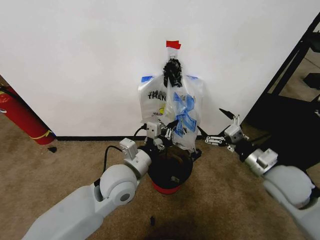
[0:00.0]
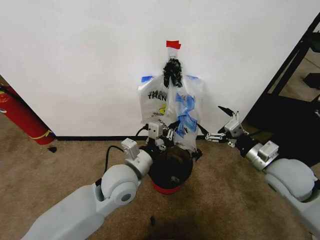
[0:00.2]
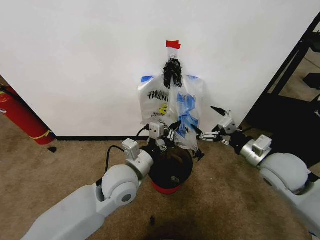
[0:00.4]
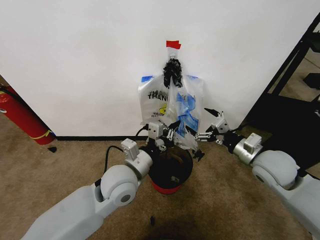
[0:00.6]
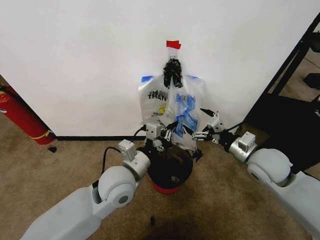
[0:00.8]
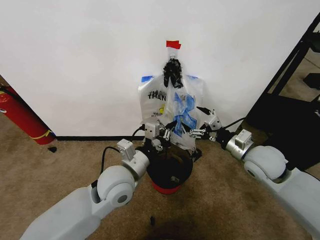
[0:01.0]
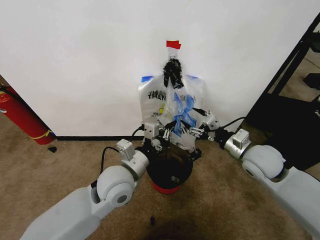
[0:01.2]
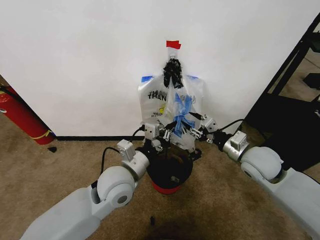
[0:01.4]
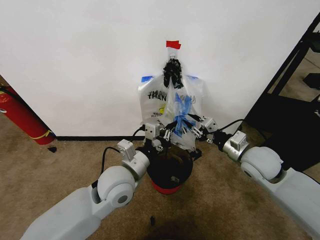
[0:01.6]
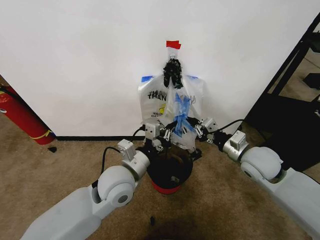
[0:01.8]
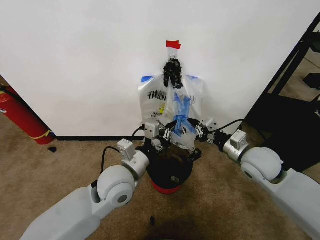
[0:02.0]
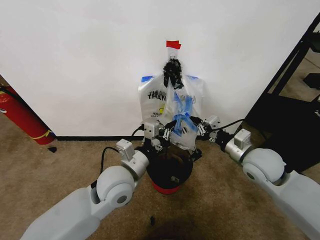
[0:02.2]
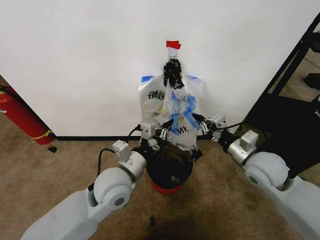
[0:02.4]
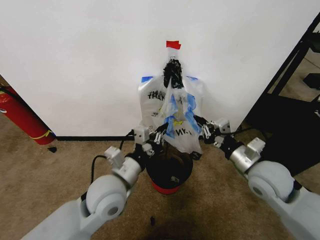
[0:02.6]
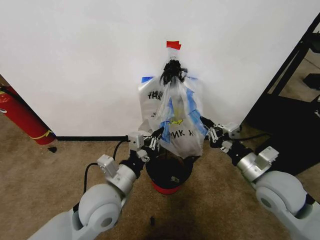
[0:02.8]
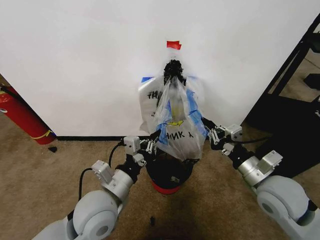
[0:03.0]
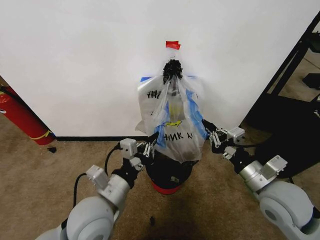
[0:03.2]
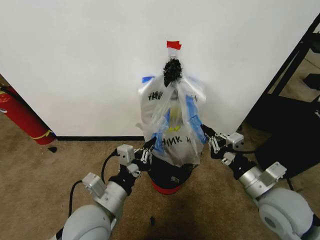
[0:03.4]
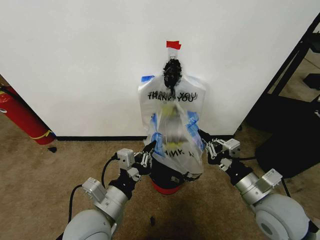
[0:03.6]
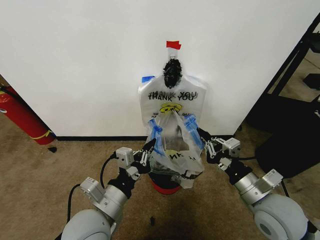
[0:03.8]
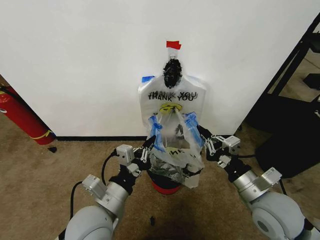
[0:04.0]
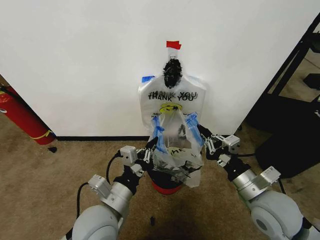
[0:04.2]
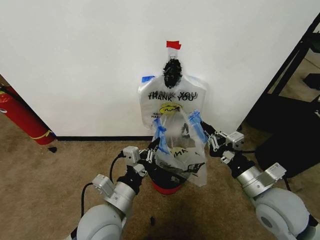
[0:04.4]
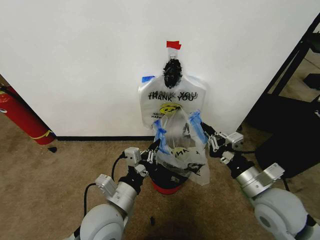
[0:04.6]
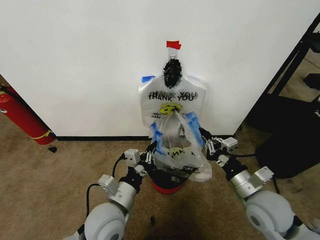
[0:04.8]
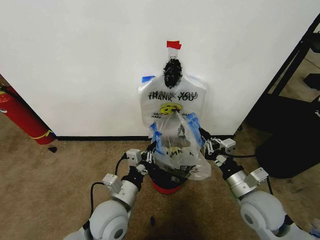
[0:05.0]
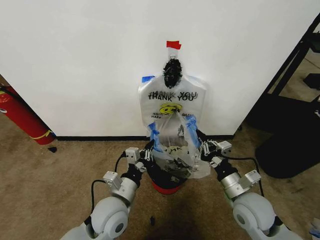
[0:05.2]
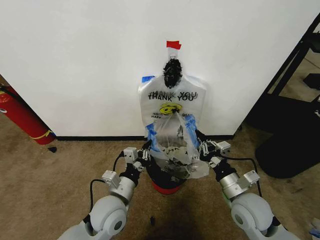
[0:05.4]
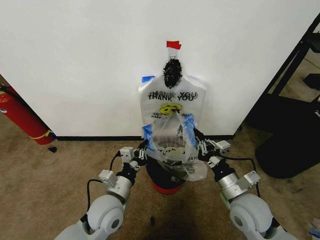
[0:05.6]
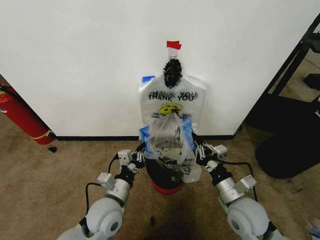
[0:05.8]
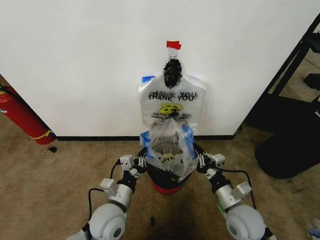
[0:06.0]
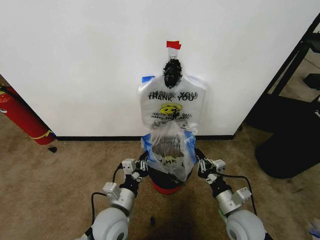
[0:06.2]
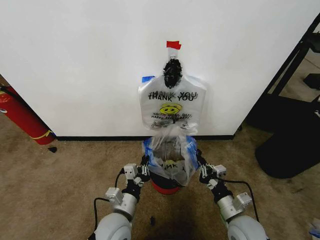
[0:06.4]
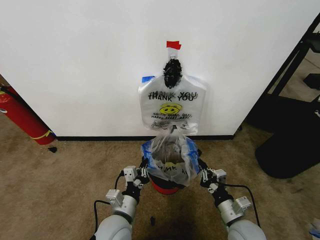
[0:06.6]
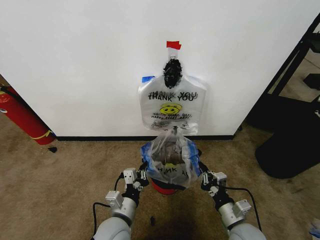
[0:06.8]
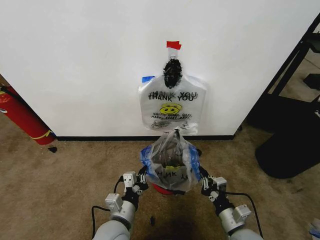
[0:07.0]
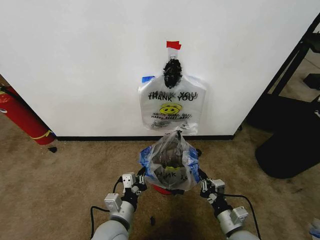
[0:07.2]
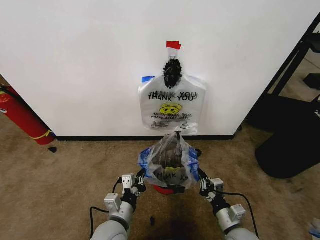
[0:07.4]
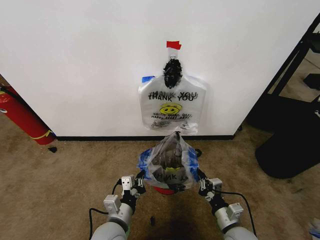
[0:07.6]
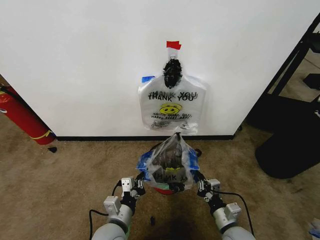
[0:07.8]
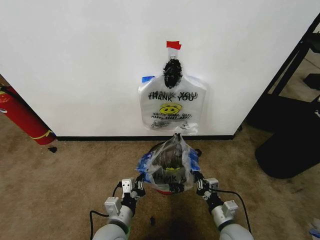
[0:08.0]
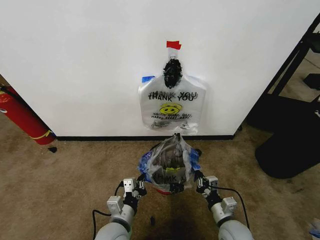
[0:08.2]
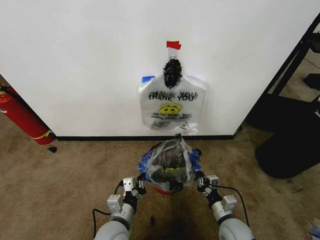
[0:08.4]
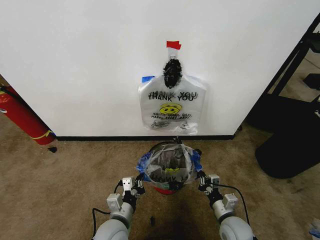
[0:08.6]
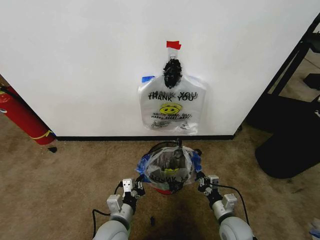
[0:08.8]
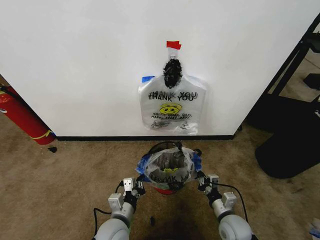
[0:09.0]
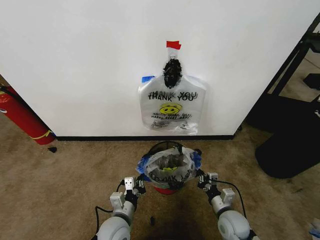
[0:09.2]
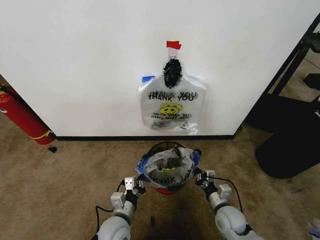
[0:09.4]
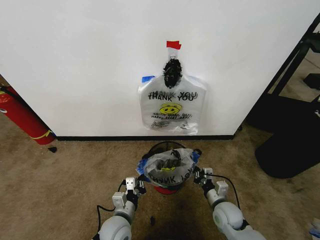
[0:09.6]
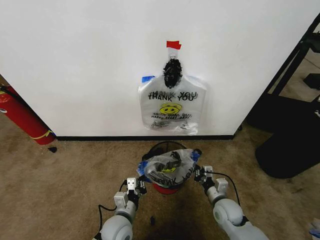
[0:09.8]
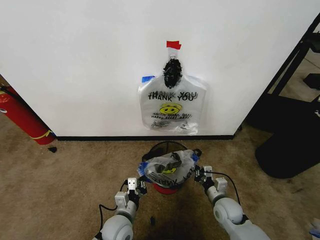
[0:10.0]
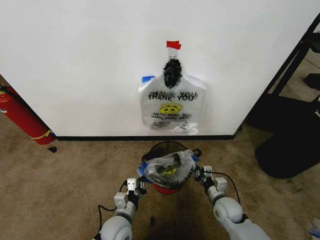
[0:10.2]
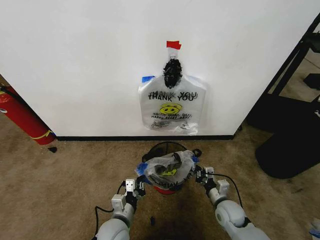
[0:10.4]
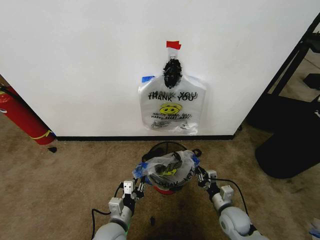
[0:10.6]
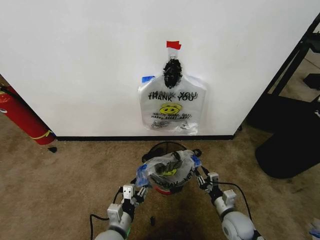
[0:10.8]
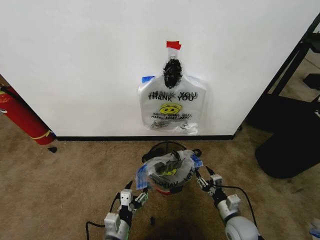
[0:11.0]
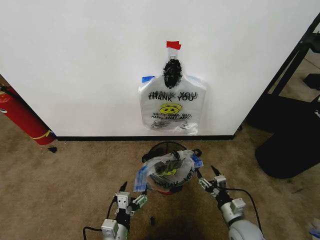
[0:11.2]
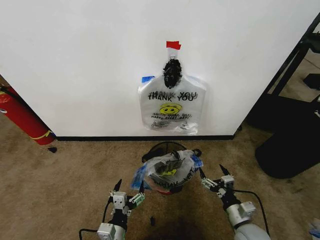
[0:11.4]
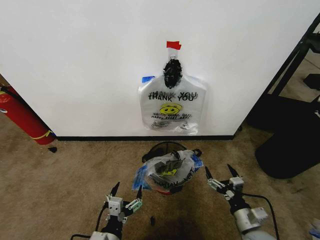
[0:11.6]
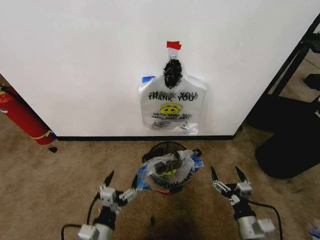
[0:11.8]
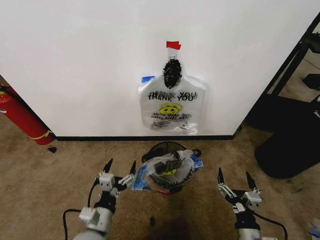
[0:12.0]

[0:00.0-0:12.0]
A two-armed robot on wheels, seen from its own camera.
Task of the whole recording: Pick up the garbage bag from the wall and place it over the trash bin.
0:00.0 to 0:01.6: The right gripper moves forward, about 5 cm, and closes its fingers.
0:01.6 to 0:03.0: Both grippers move backward, about 10 cm.
0:03.0 to 0:04.4: There are only small adjustments of the grippers.
0:04.4 to 0:06.0: The grippers both shift downward by roughly 10 cm.
0:06.0 to 0:07.6: The left gripper shifts by approximately 5 cm; the right gripper travels downward by about 10 cm.
0:07.6 to 0:09.0: The right gripper shifts by approximately 5 cm.
0:09.0 to 0:10.4: The right gripper heads forward, covering roughly 5 cm.
0:10.4 to 0:12.0: The right gripper travels backward and upward by about 20 cm, and opens its fingers. Meanwhile the left gripper heads upward and backward, covering approximately 10 cm, and opens.

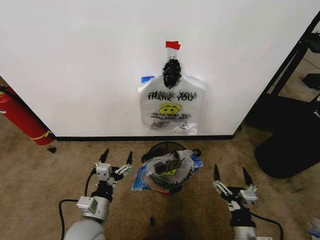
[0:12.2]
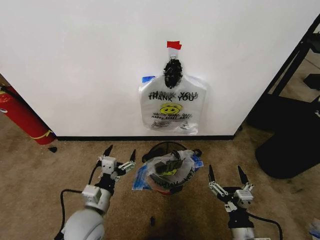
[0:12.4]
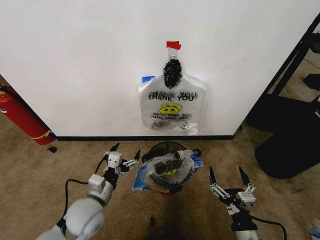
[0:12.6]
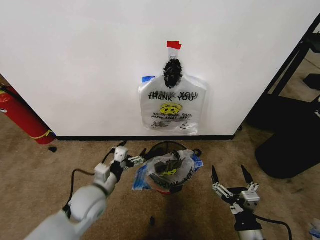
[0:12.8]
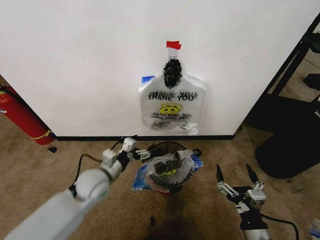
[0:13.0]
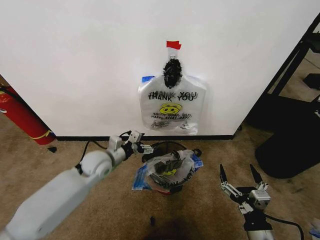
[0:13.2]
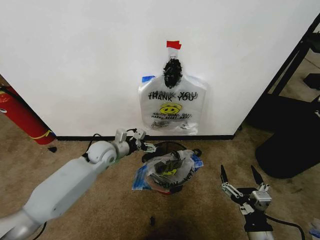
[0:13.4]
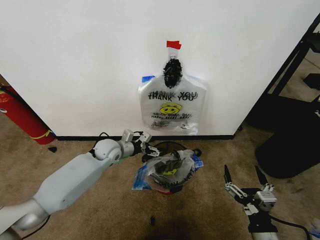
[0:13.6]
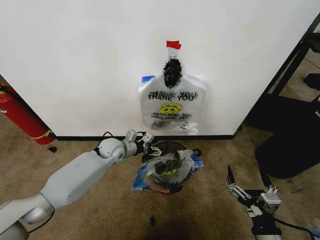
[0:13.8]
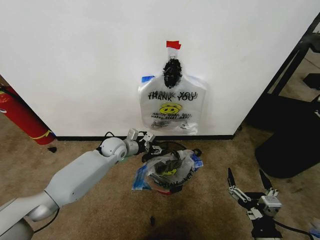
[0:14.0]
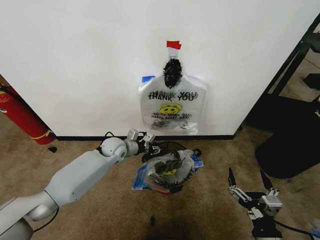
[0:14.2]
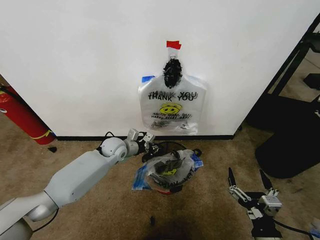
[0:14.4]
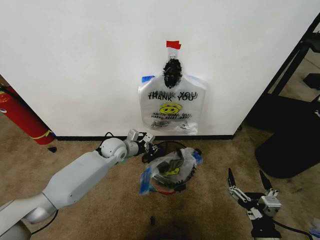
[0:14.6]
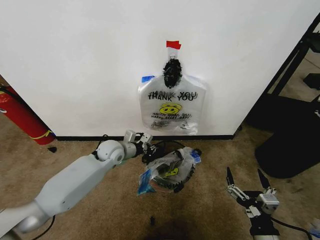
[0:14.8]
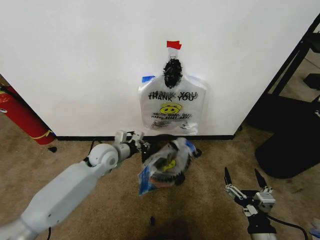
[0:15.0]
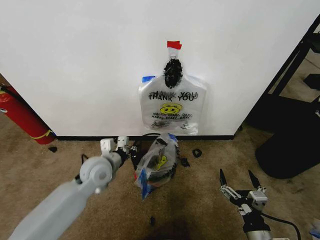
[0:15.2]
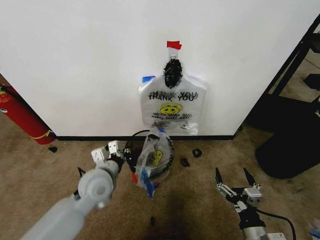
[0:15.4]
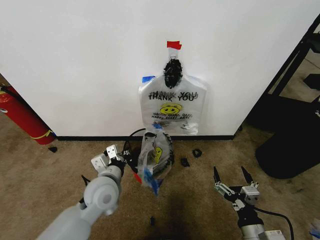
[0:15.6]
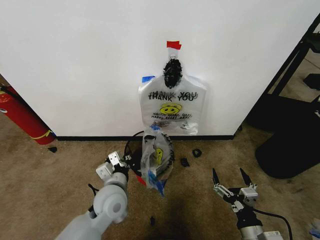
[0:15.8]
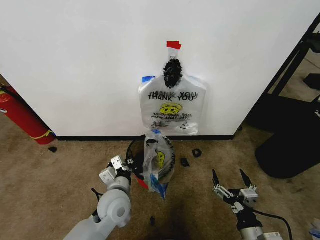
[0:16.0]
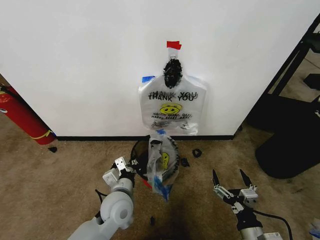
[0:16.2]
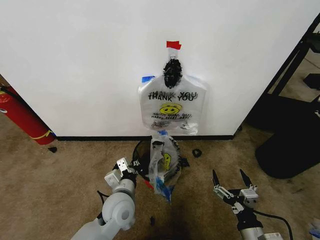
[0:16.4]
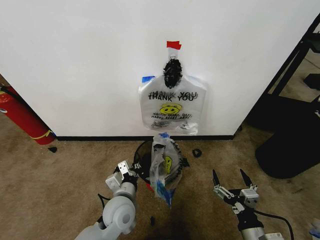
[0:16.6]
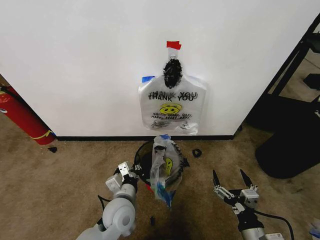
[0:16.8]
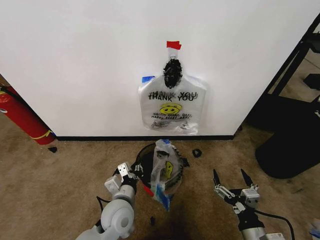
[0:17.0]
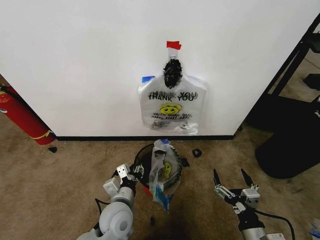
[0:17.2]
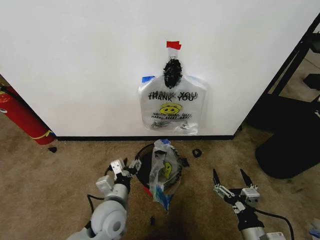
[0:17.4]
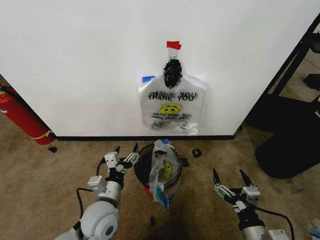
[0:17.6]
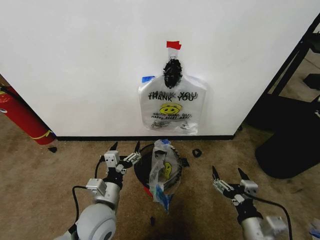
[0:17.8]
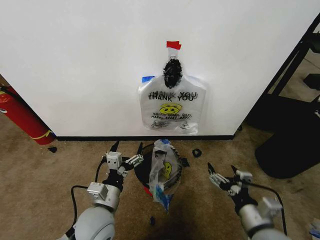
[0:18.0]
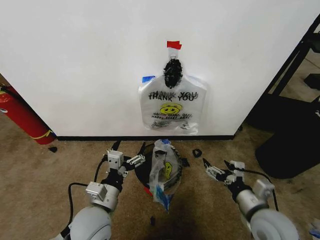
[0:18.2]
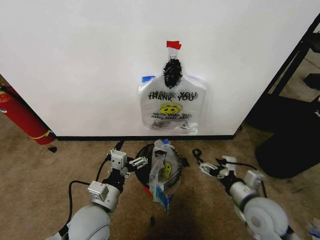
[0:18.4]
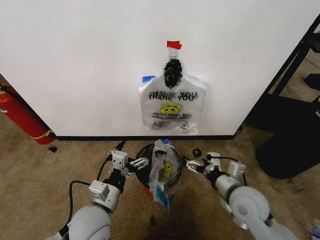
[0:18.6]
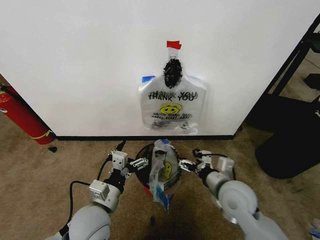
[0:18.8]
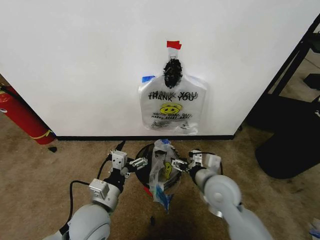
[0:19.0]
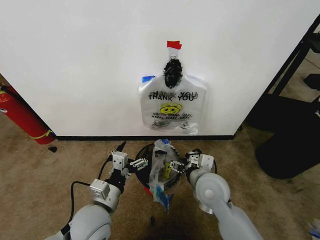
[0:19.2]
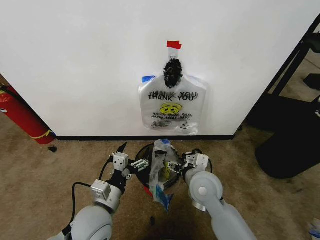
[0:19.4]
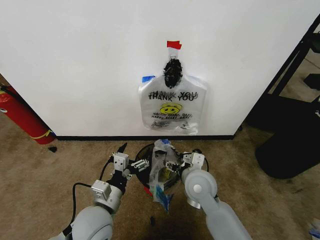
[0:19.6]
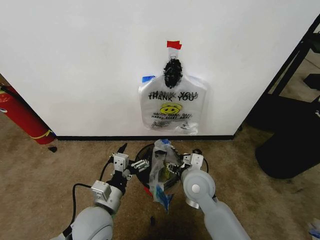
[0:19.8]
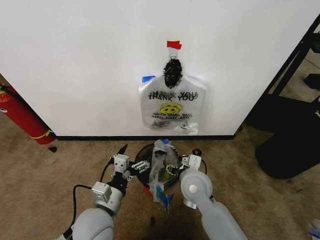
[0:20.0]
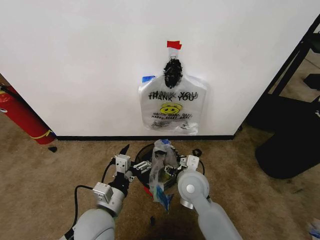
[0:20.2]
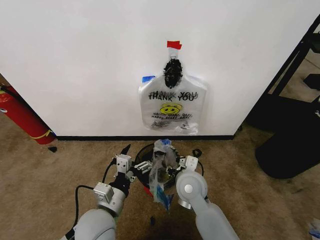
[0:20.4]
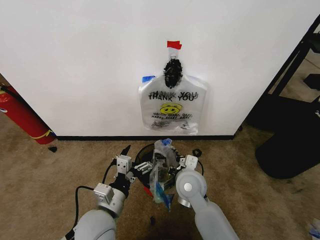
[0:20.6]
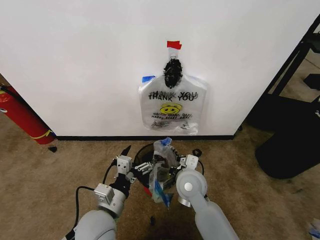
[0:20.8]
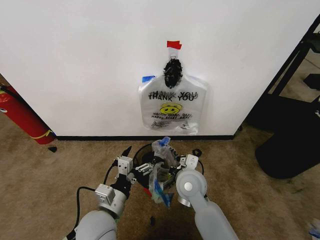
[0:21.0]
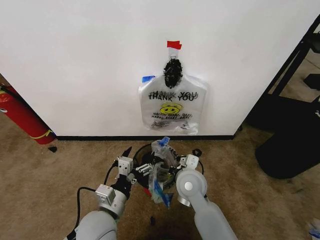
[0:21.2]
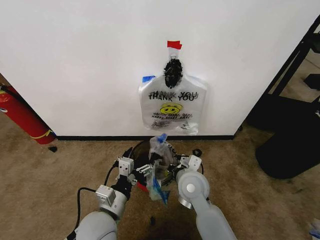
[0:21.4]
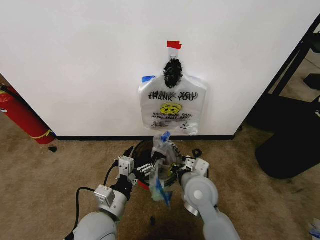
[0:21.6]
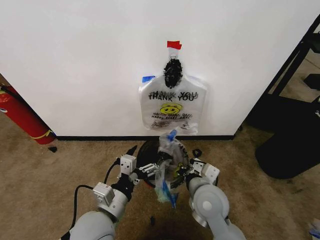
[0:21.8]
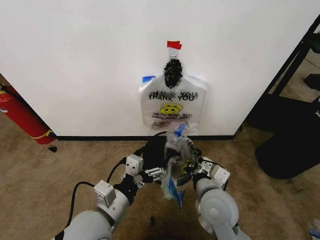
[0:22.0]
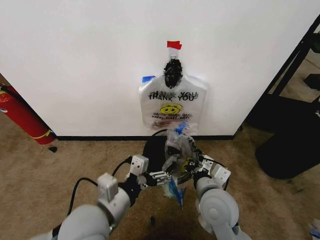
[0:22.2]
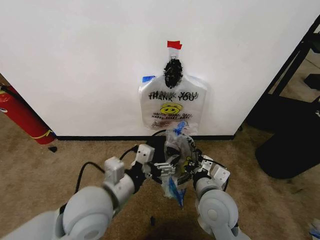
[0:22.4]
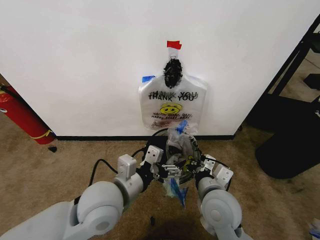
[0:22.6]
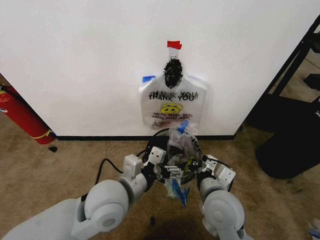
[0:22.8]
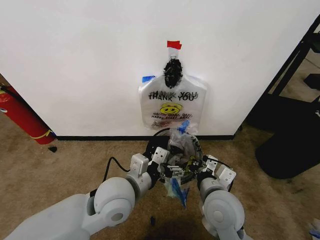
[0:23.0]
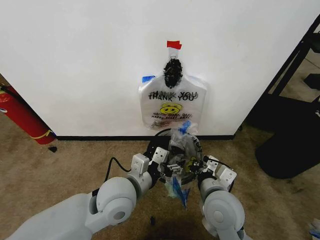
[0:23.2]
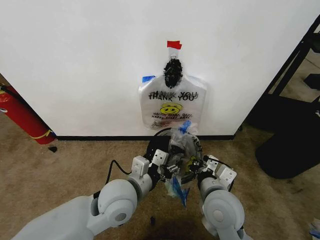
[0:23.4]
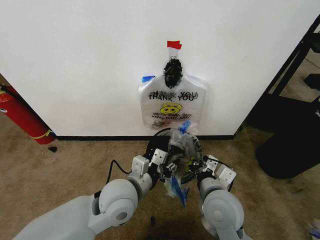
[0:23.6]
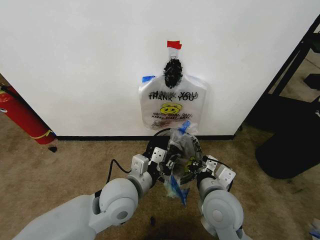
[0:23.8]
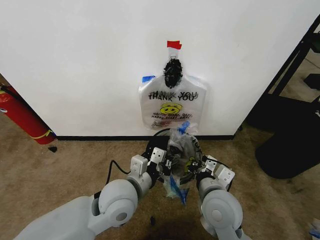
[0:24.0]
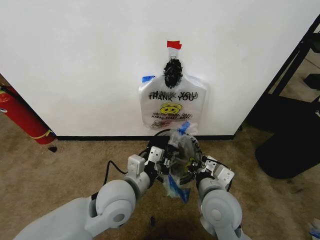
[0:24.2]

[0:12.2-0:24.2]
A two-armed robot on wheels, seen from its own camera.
Task of the whole recording: Pick up the garbage bag from the wall and place it over the trash bin.
0:12.2 to 0:13.8: The left gripper heads forward, covering about 30 cm, while the right gripper moves roughly 5 cm.
0:13.8 to 0:15.2: The left gripper is displaced backward by some 10 cm, and closes up.
0:15.2 to 0:16.6: The left gripper is displaced backward, to the right and downward by some 15 cm.
0:16.6 to 0:18.2: The right gripper goes about 10 cm forward and upward. The left gripper travels upward, to the left and backward by roughly 10 cm, and opens.
0:18.2 to 0:19.8: The right gripper moves to the left and forward, approximately 20 cm.
0:19.8 to 0:21.2: The right gripper closes.
0:21.2 to 0:22.6: The left gripper travels upward by about 10 cm; the right gripper travels backward and to the right by roughly 10 cm.
0:22.6 to 0:24.2: The left gripper ends up roughly 5 cm from where it was, and closes.
